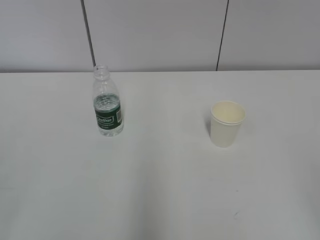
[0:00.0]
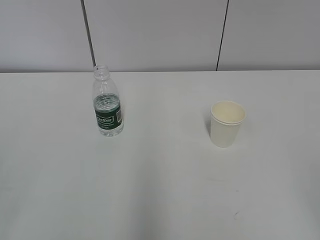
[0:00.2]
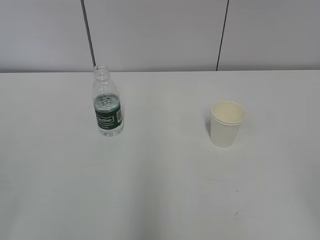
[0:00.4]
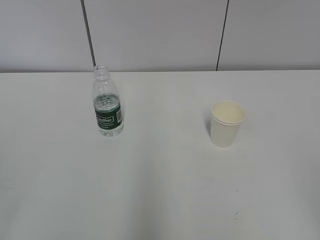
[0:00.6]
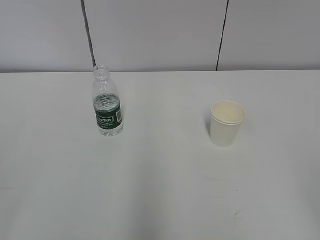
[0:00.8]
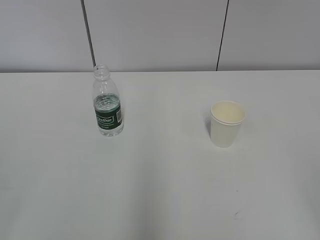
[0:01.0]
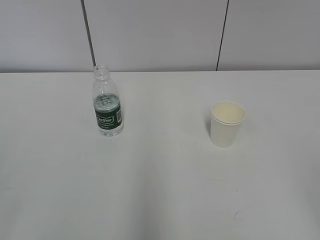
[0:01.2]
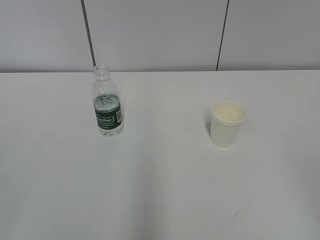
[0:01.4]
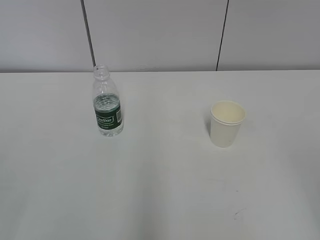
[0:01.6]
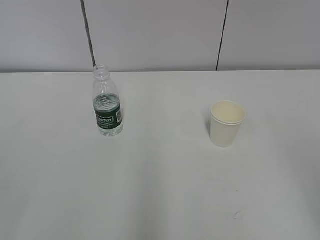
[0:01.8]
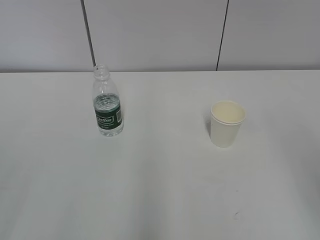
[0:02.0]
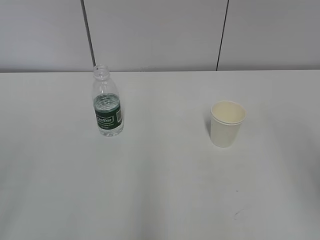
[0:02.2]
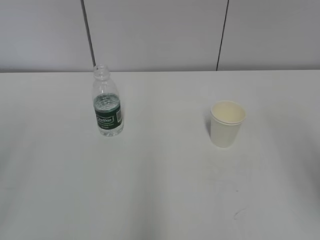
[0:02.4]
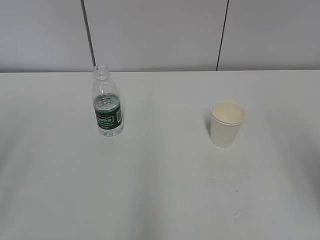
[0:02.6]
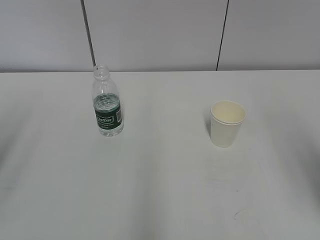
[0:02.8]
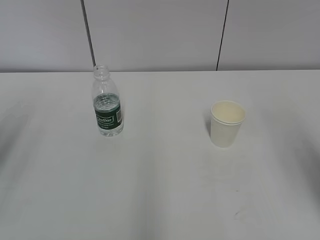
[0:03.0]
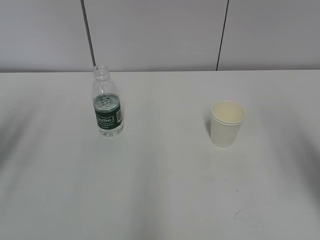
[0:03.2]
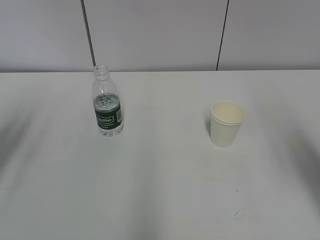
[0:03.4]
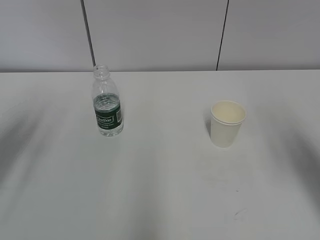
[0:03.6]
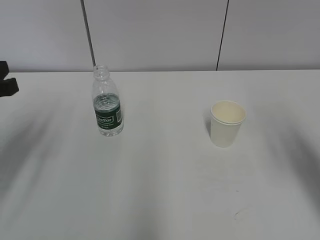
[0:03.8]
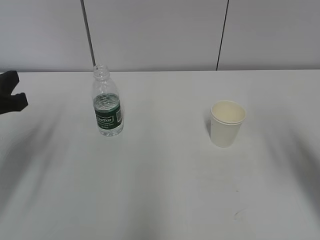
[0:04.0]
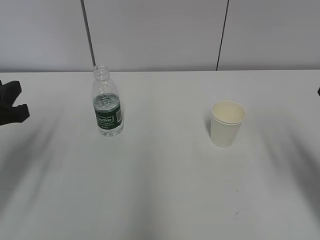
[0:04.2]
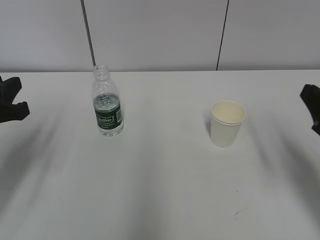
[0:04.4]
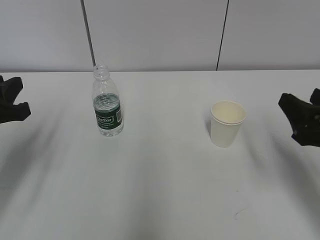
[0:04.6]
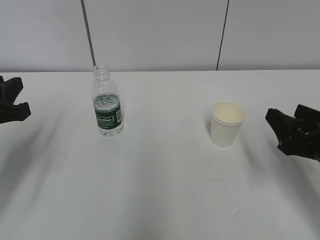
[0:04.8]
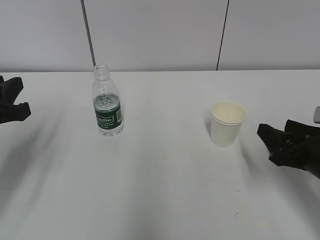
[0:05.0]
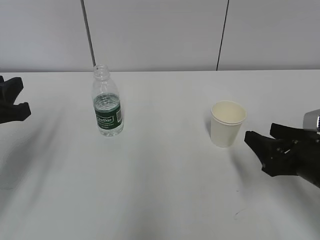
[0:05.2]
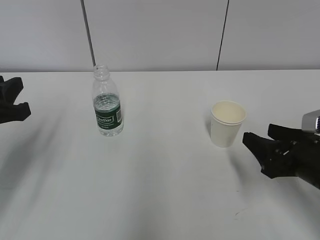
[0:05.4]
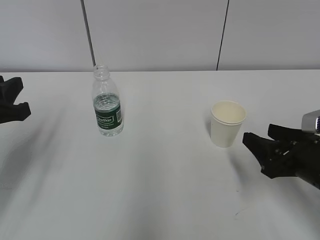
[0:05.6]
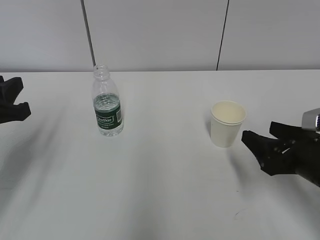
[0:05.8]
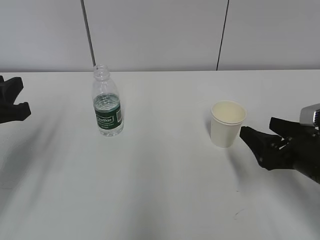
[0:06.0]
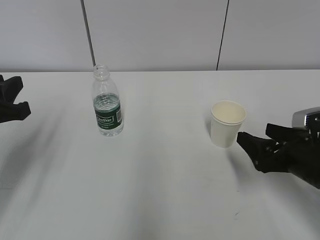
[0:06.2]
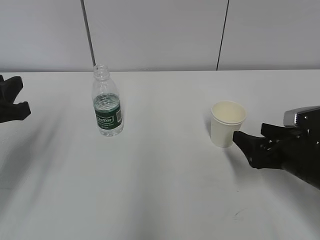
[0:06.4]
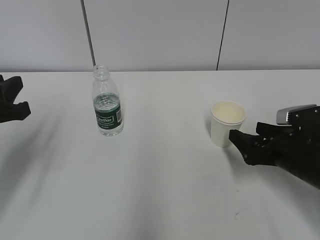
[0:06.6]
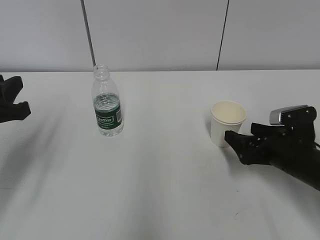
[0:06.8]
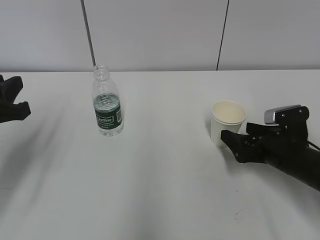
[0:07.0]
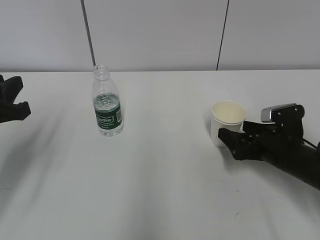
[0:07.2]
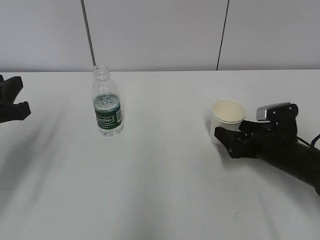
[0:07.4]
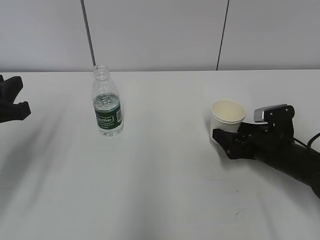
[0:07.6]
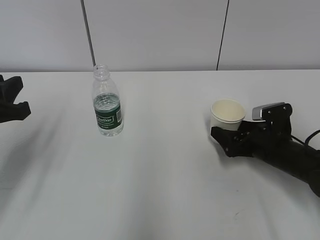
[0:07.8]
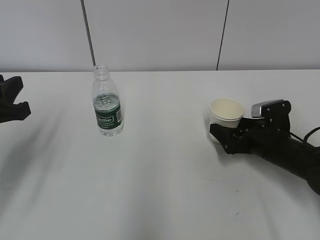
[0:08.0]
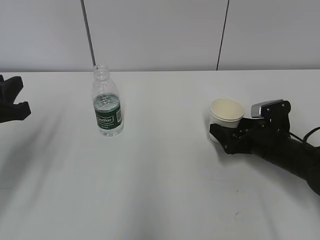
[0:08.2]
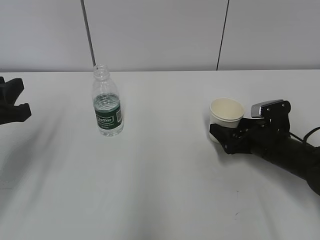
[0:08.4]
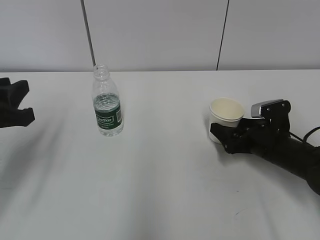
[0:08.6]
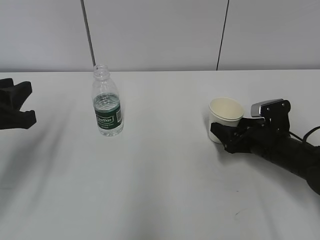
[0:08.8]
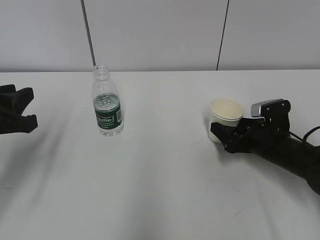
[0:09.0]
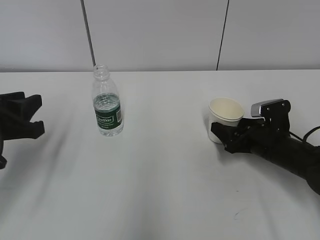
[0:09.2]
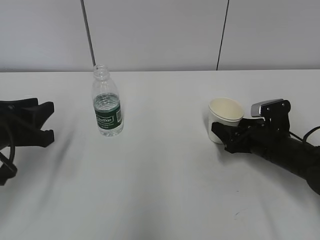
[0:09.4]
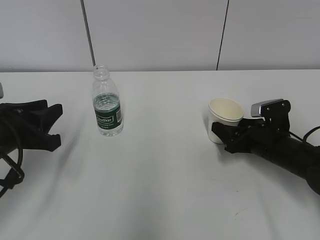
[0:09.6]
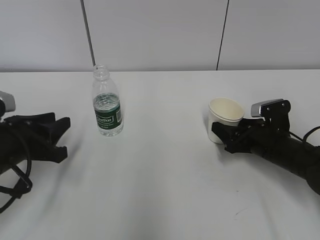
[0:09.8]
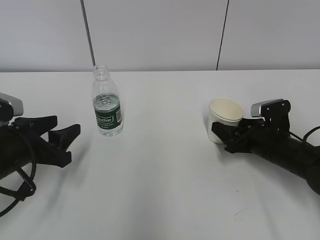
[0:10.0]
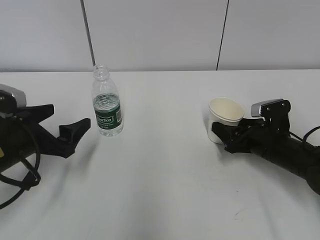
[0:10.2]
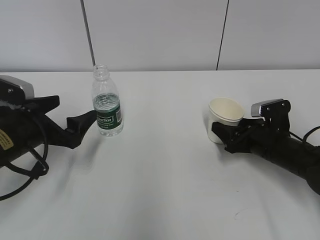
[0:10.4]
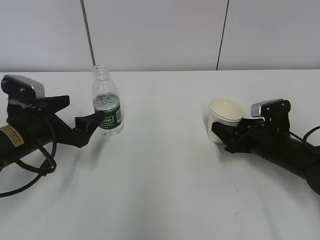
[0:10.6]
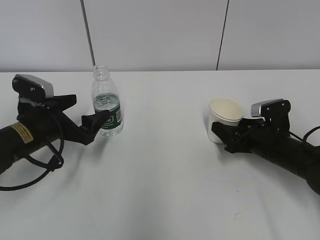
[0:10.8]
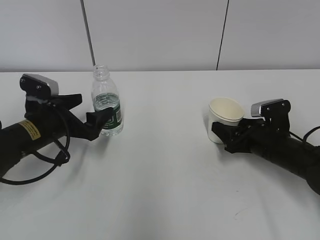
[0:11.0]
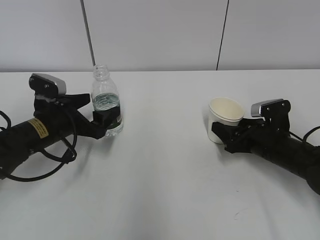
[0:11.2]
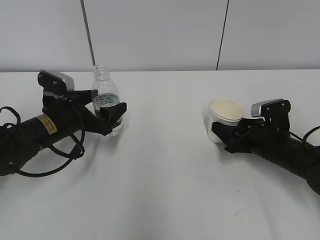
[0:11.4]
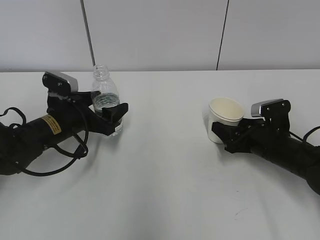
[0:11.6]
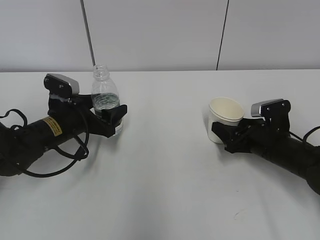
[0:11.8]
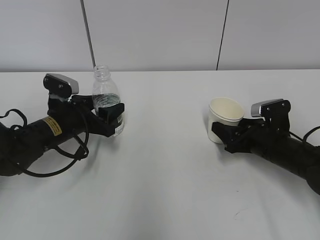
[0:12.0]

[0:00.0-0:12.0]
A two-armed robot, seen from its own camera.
Step, 0:00.0 to 0:10.2: Grab the paper cup with the right hand.
Step, 0:10.4 to 0:10.8: Grab the water bottle with the left hand.
0:01.6 to 0:03.0: The two grippers go roughly 15 cm forward.
0:03.0 to 0:04.4: Both grippers move downward and forward, roughly 15 cm.
0:04.4 to 0:06.0: The right gripper travels downward by roughly 10 cm, and opens up.
0:06.0 to 0:07.6: The right gripper heads forward and downward, covering approximately 10 cm.
0:07.6 to 0:09.0: The right gripper closes.
0:09.0 to 0:10.4: The left gripper shifts about 10 cm downward and forward, and opens up.
0:10.4 to 0:12.0: The left gripper travels forward by approximately 5 cm, and closes its fingers.

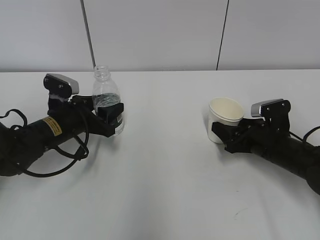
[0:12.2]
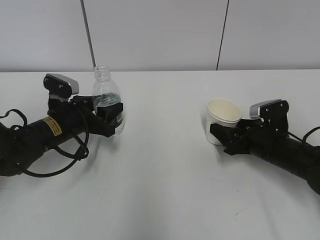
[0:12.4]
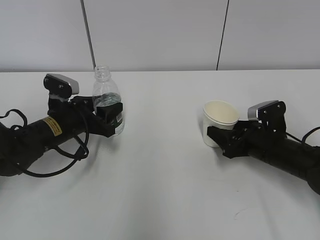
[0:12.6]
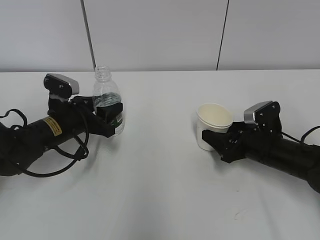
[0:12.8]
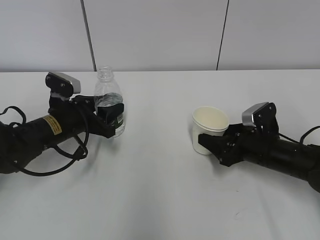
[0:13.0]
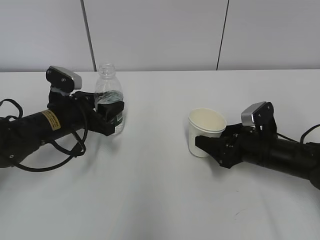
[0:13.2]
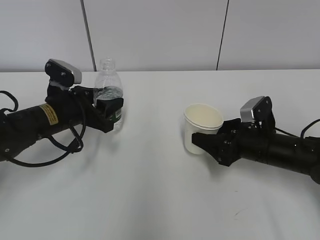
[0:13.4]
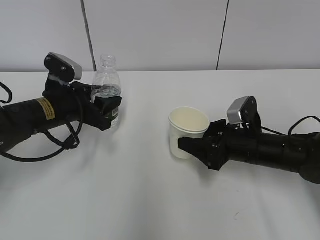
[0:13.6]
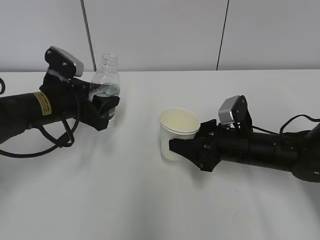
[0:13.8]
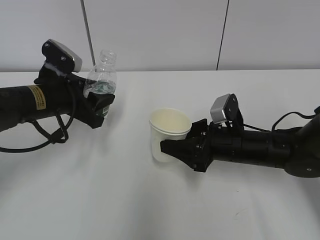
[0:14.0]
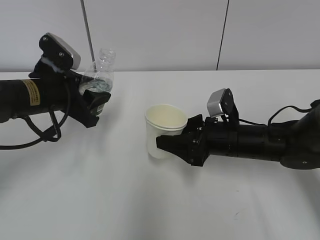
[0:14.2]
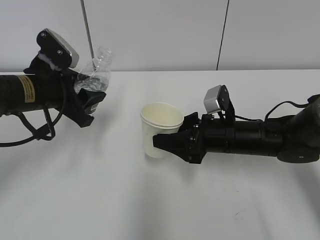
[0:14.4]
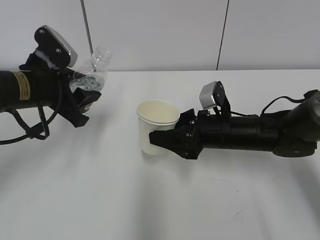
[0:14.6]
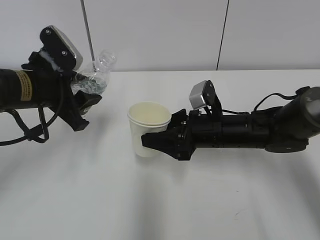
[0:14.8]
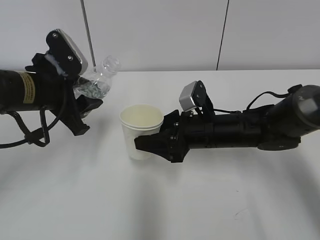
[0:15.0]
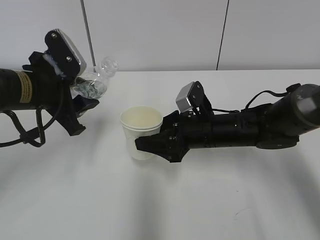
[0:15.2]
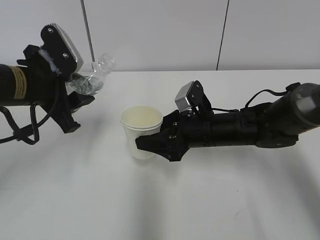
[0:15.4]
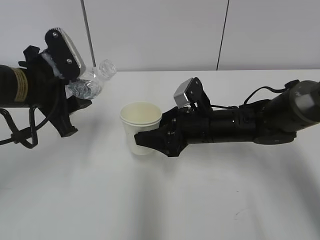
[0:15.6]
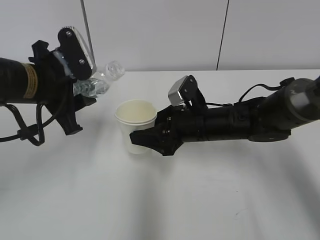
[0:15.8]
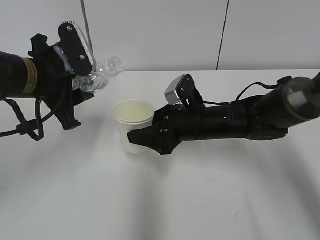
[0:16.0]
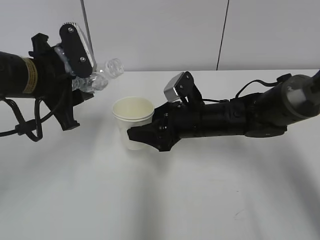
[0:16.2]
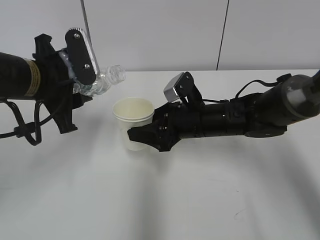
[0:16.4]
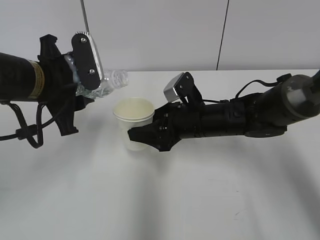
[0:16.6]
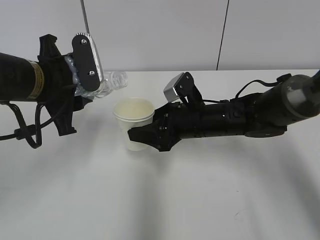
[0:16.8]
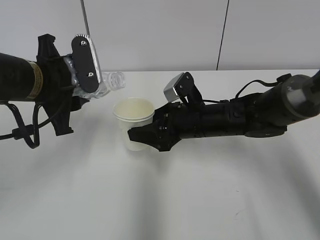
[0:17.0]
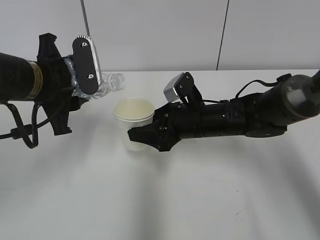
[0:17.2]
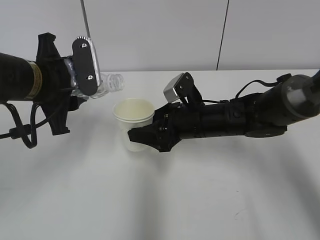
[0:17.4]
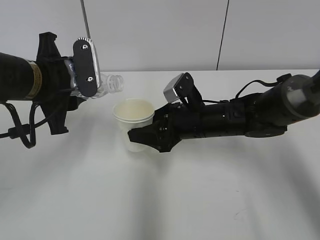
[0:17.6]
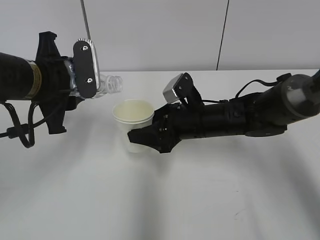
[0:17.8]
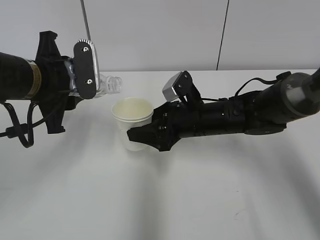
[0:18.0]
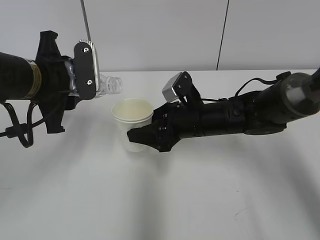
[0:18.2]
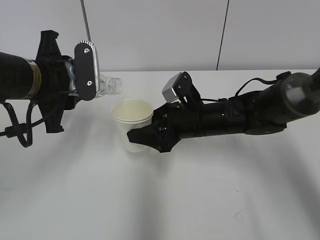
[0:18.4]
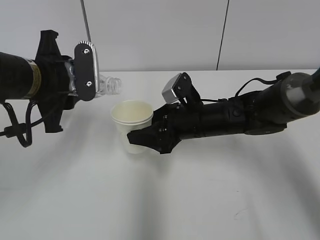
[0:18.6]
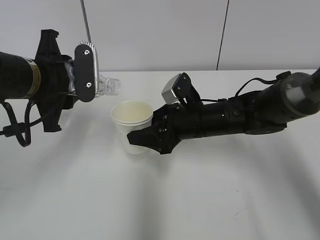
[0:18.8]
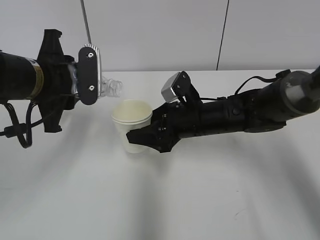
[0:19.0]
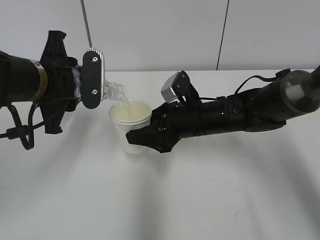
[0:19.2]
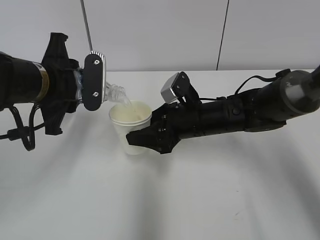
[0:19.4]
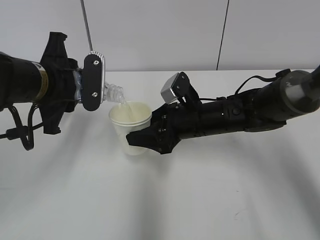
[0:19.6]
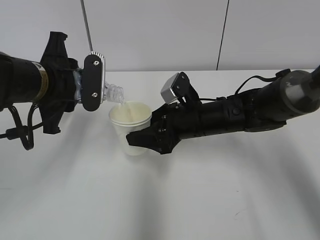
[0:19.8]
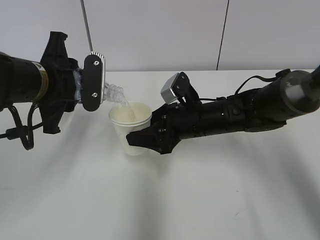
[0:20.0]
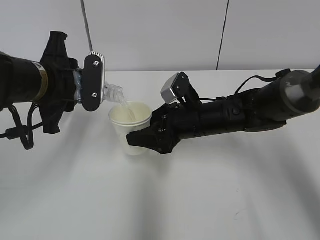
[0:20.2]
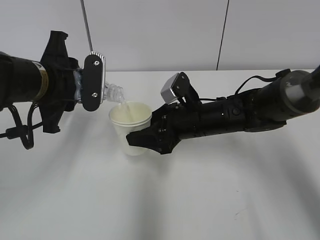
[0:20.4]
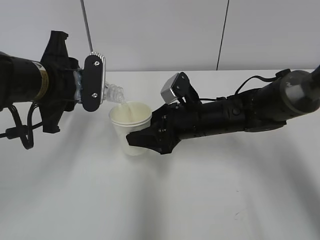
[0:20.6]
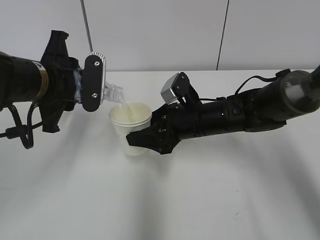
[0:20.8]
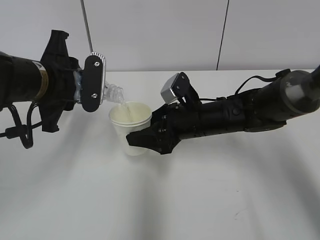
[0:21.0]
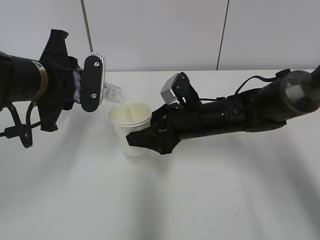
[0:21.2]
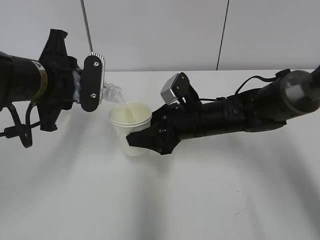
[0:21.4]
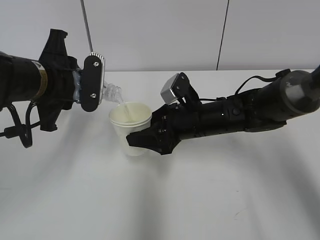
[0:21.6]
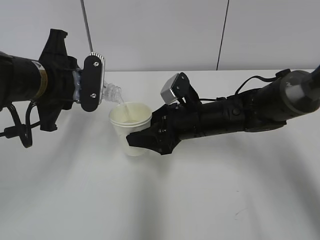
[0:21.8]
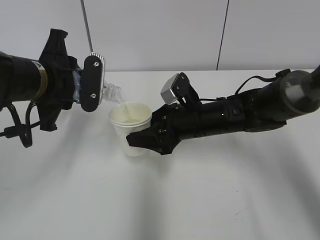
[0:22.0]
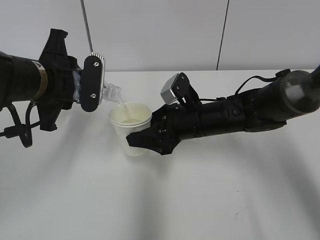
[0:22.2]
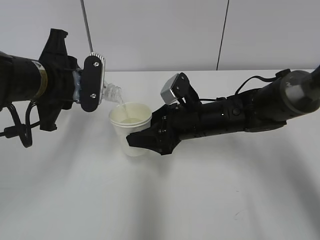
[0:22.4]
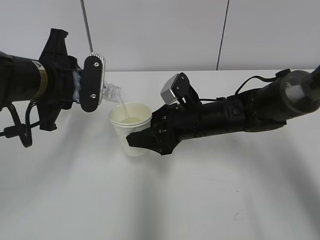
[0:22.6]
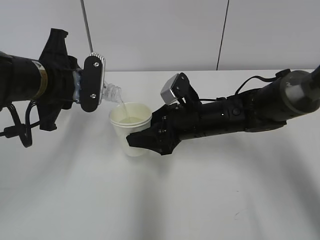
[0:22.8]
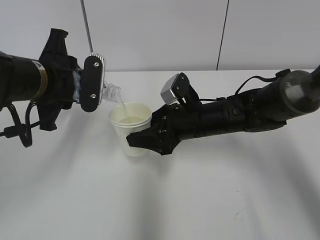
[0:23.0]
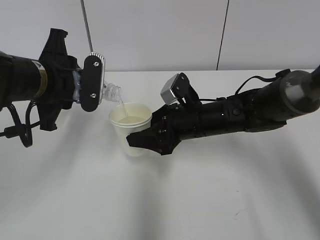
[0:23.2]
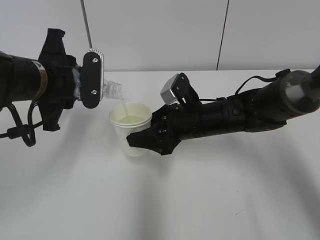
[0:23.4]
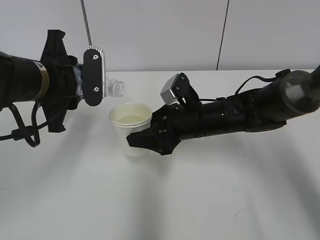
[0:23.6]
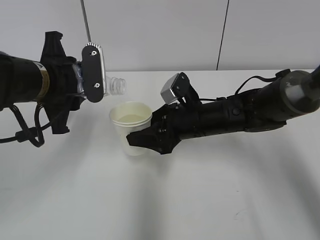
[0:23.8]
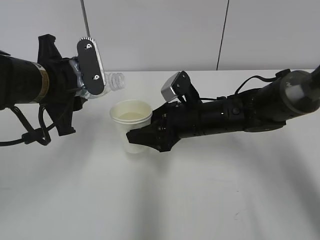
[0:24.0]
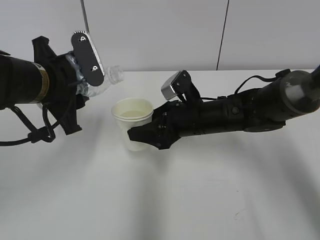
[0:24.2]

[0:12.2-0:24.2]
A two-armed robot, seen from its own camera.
Step, 0:12.2 to 0:15.8: Lift the paper cup with the right hand.
Step, 0:16.0 to 0:19.6: Fill water with the right hand.
Step, 0:16.0 to 0:19.6: Pour water with the left hand.
Step, 0:19.8 to 0:23.8: Collect water with the left hand.
0:12.2 to 0:13.8: The right gripper travels to the left by roughly 5 cm, while the left gripper is displaced upward by about 5 cm.
0:13.8 to 0:15.2: The right gripper is displaced to the left by some 5 cm. Meanwhile the left gripper heads upward, covering about 5 cm.
0:16.6 to 0:18.2: The grippers stay close to where they were, moving slightly.
0:18.2 to 0:19.8: The grippers stay close to where they were, moving slightly.
0:19.8 to 0:22.6: The two grippers keep their place.
